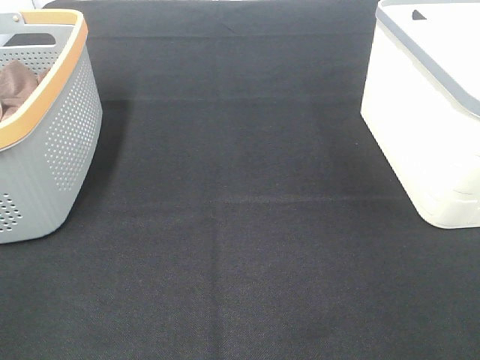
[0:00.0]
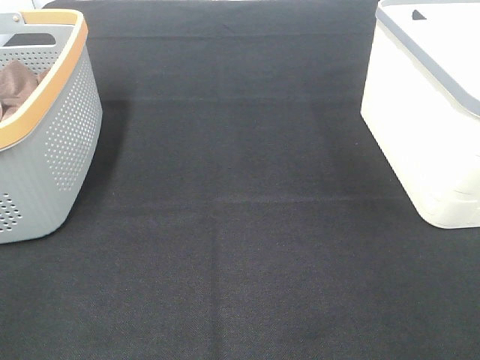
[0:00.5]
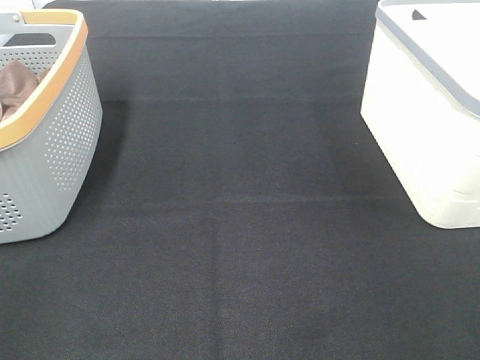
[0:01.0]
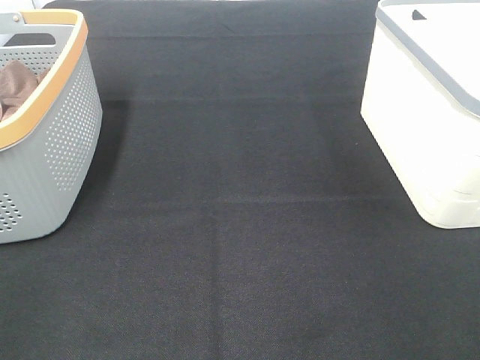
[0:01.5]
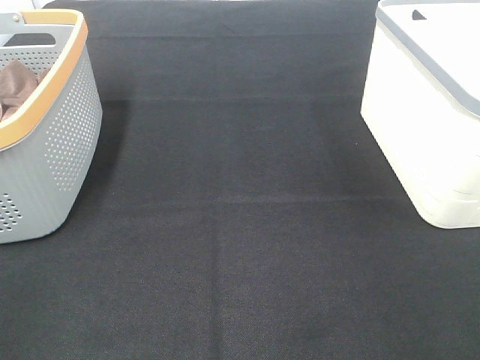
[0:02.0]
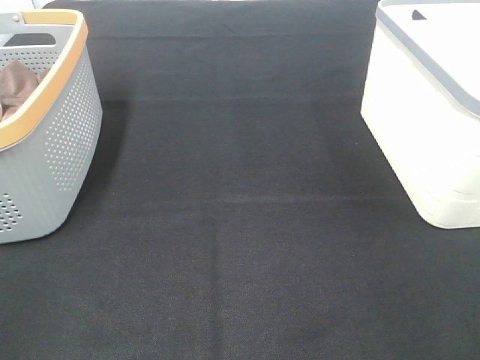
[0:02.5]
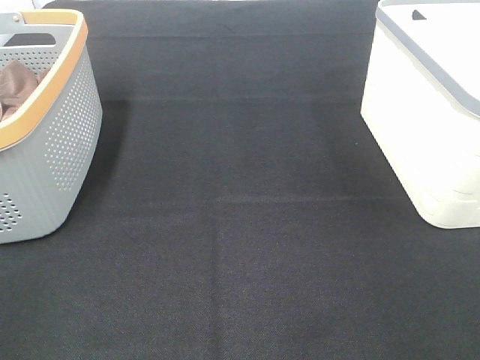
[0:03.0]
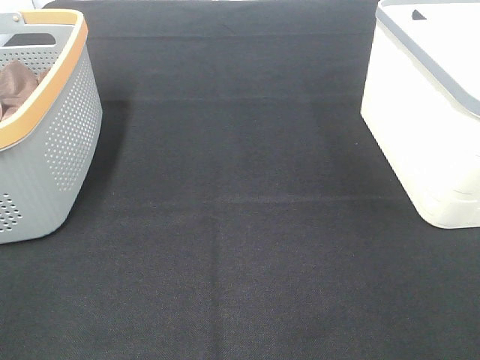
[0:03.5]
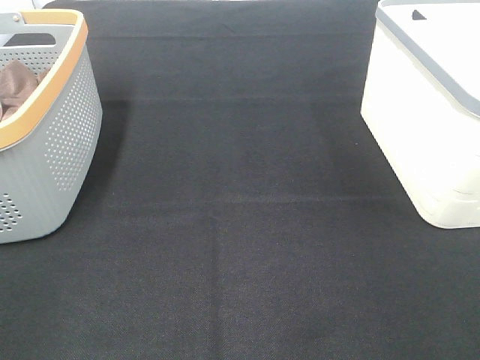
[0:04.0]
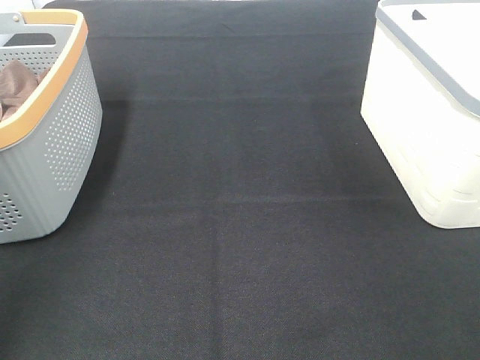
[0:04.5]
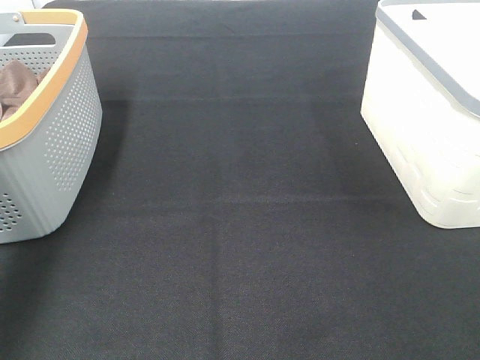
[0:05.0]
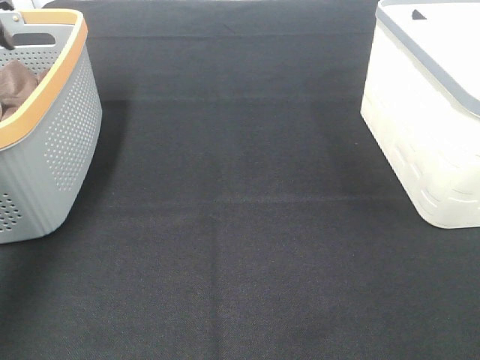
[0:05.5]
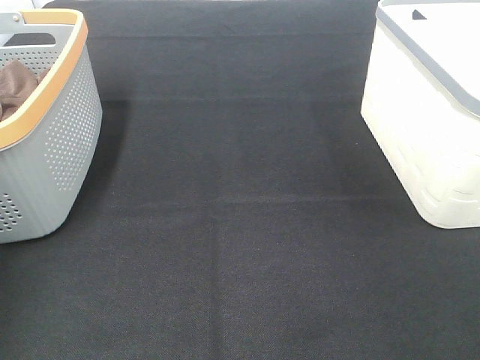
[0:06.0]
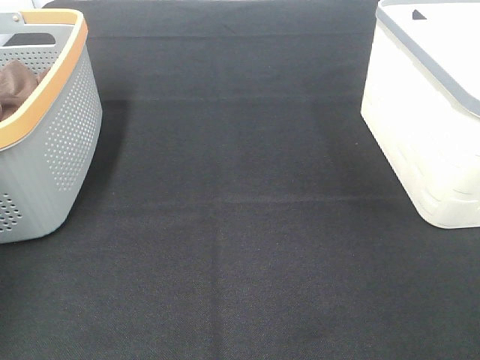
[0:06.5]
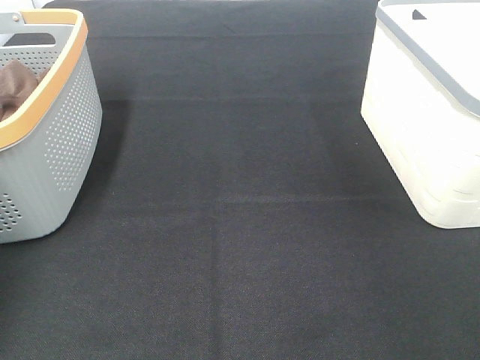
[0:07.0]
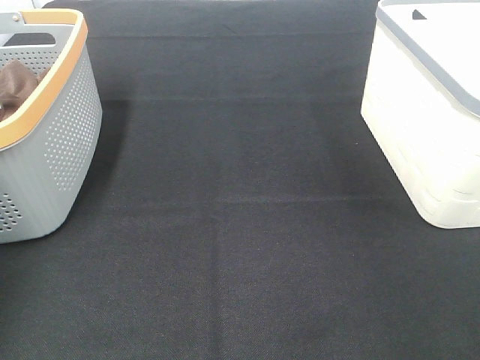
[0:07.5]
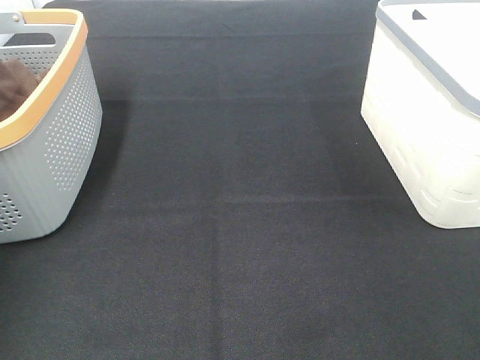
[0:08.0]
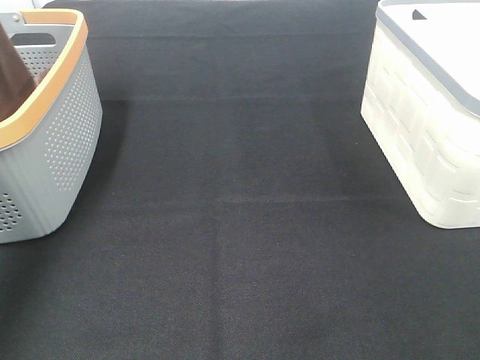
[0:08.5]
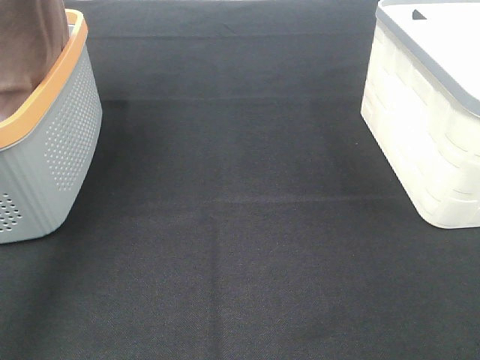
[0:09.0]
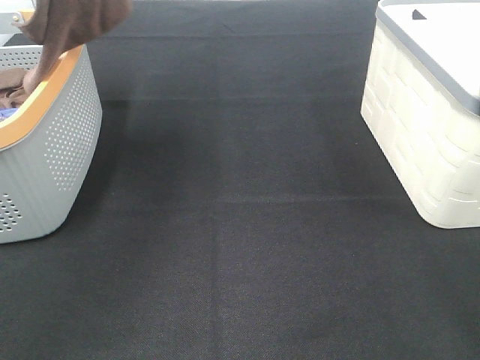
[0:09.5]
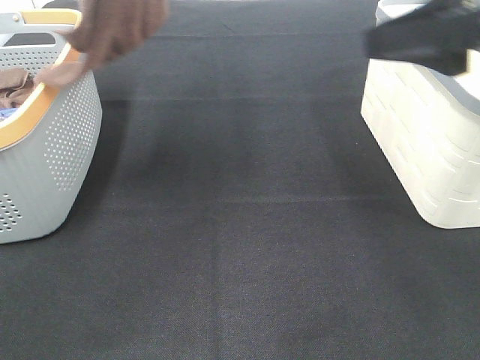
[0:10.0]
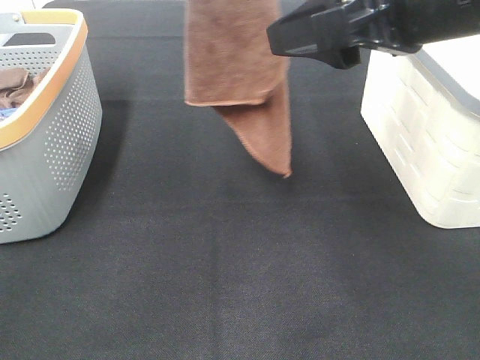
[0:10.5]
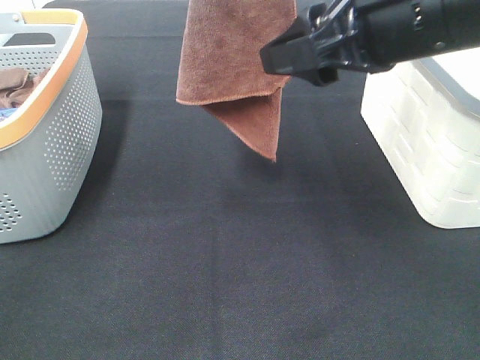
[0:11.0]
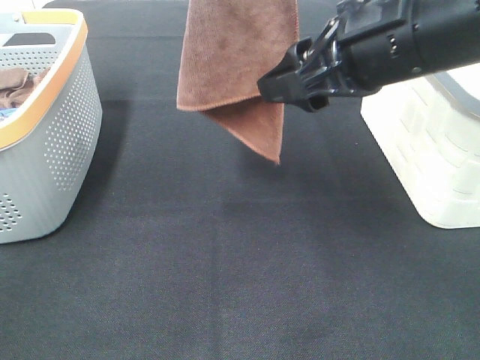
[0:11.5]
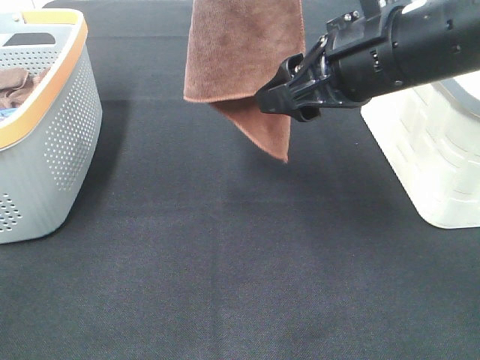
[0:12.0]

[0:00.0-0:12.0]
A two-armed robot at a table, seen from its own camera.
Task of the whole recording: Remove the towel and place it.
0:00.0 to 0:02.0: Both grippers stay about where they are.
0:04.0 to 0:06.0: The left gripper goes some 40 cm forward.
0:06.0 to 0:08.0: The left gripper is displaced upward by approximately 10 cm, and closes up.
0:08.0 to 0:10.0: The right gripper shifts some 25 cm forward and to the left. The left gripper moves to the right, upward and backward, some 30 cm.
0:10.0 to 0:12.0: The left gripper heads to the right, covering about 10 cm. The right gripper shifts approximately 10 cm to the left, downward and forward.

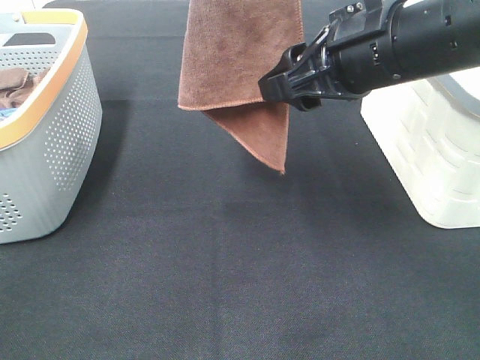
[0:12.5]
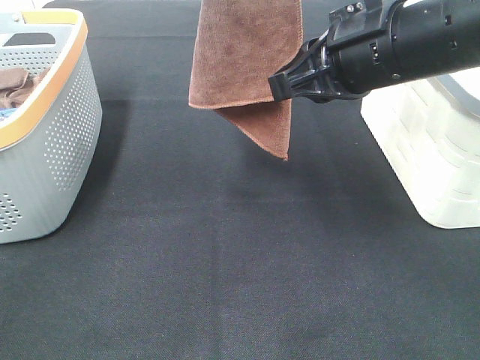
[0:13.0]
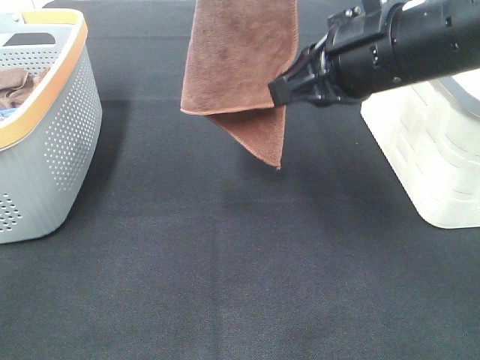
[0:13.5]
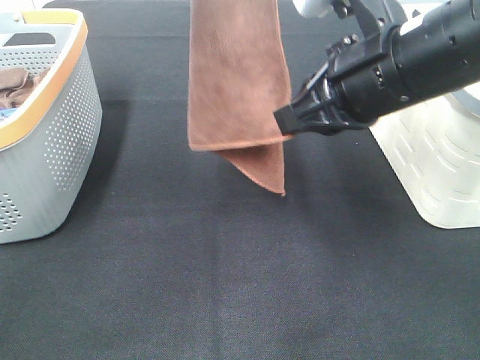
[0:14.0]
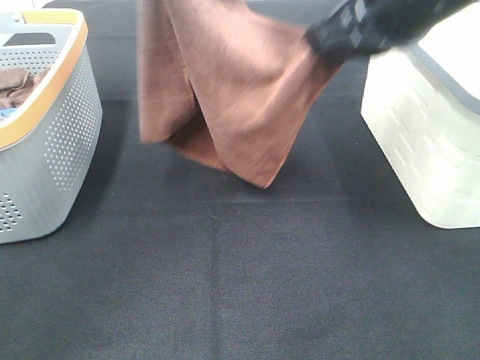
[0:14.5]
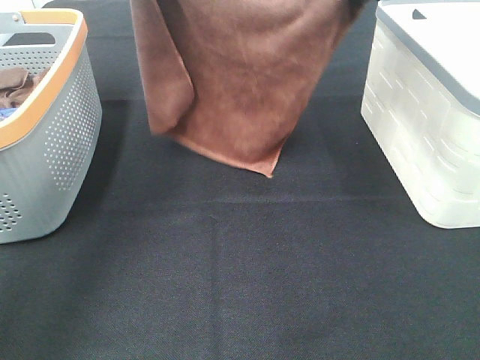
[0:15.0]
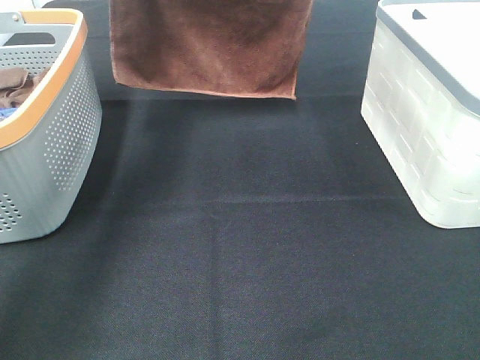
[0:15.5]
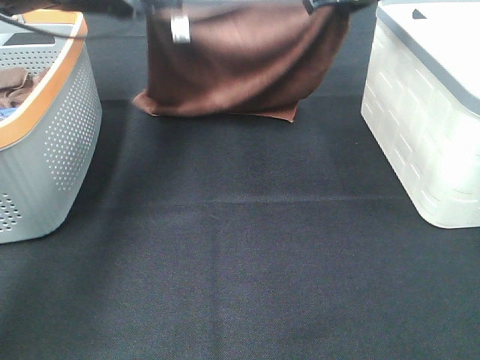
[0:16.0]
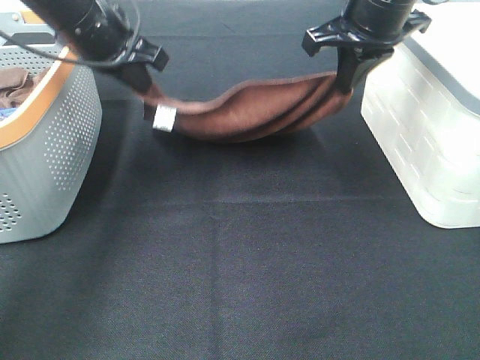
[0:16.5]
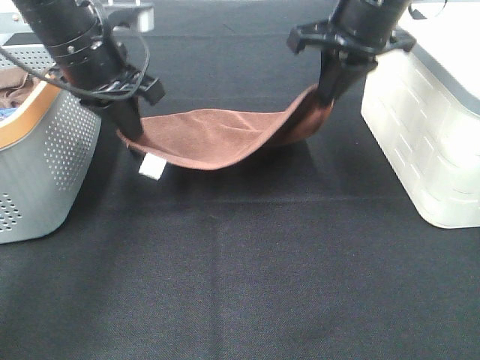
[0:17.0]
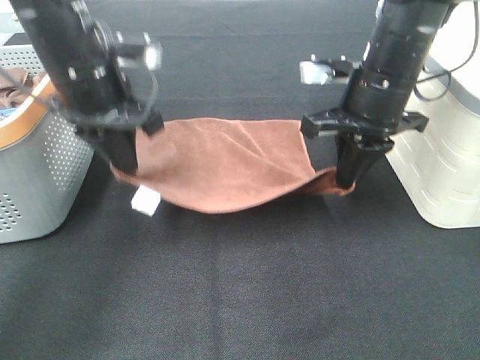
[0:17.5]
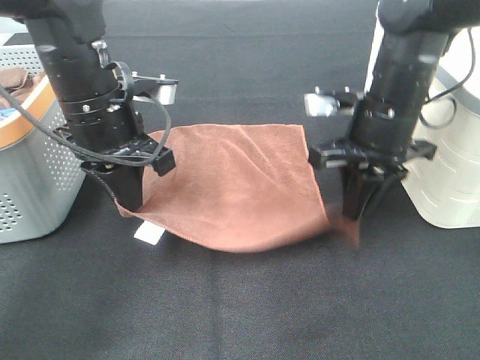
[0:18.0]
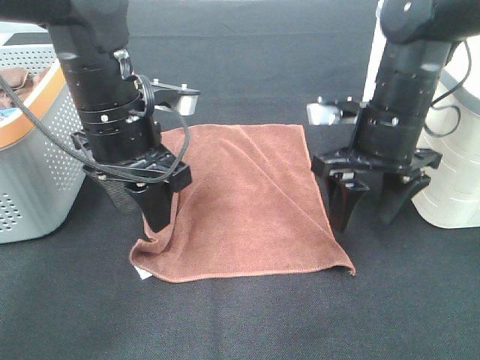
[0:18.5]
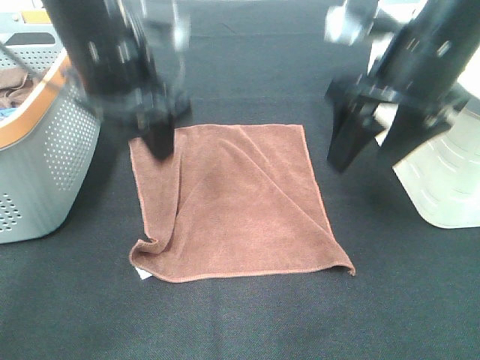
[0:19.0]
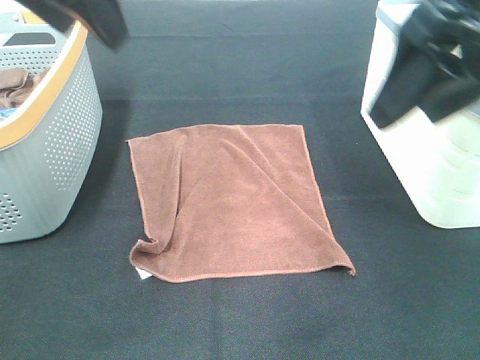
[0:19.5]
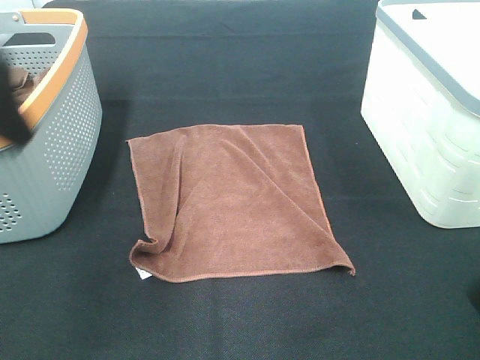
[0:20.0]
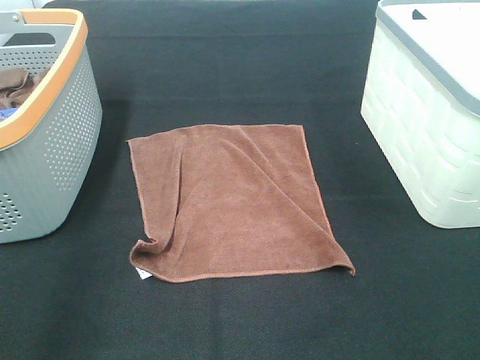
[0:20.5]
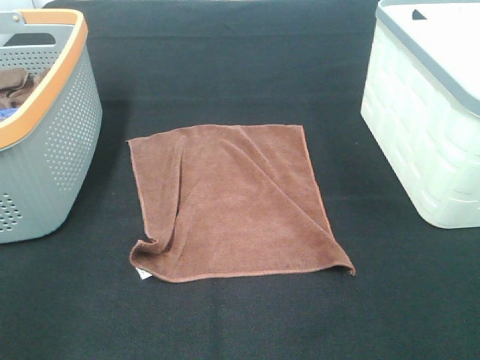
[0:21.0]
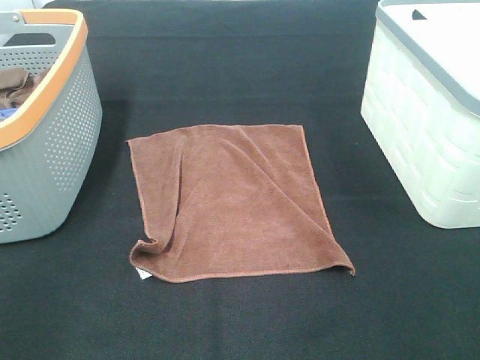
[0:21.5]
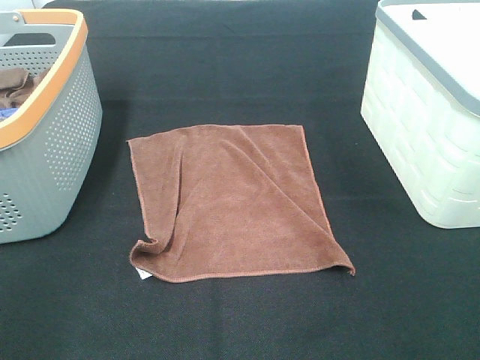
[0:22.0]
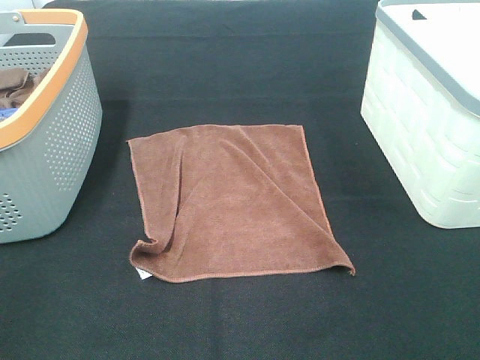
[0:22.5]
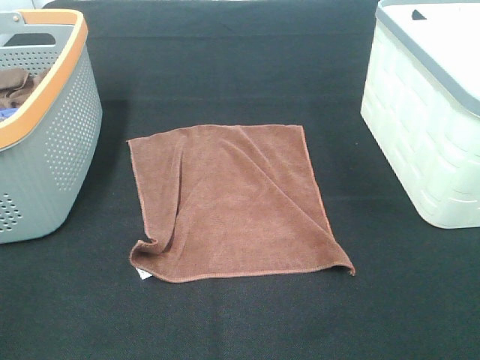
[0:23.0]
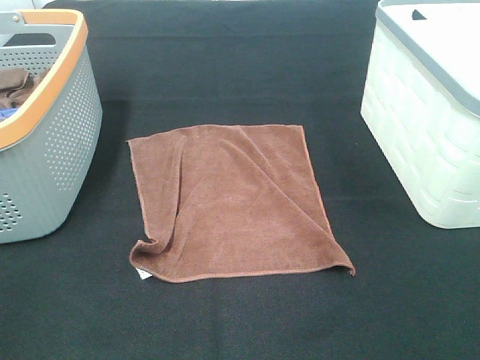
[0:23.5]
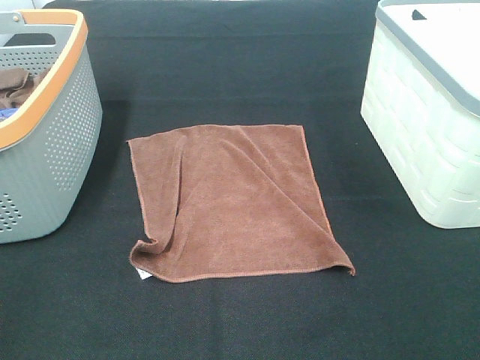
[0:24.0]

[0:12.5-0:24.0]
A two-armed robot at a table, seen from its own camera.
Task of the whole recording: Remove the towel and place it.
Step, 0:12.5 to 0:14.0: Right hand: spread the brown towel flat on the table.
Step, 0:12.5 to 0:14.5: Left hand: spread the brown towel flat on the table.
0:12.5 to 0:14.5: The right gripper heads upward, covering approximately 5 cm, and closes; the left gripper travels to the left, forward and downward by some 15 cm.
0:14.5 to 0:16.5: The right gripper moves forward and downward, about 10 cm, while the left gripper travels downward by some 15 cm.
0:16.5 to 0:18.5: The right gripper shifts roughly 15 cm downward and backward, and opens up. The left gripper moves backward and to the right, roughly 10 cm, and opens.
0:18.5 to 0:20.0: The right gripper shifts roughly 25 cm backward and upward. The left gripper moves upward, backward and to the left, approximately 20 cm.
0:20.0 to 0:22.0: The left gripper heads backward, to the left and downward, covering some 20 cm.

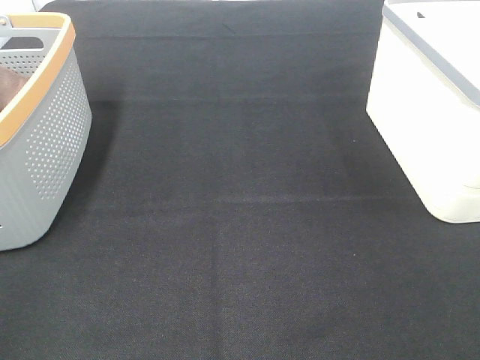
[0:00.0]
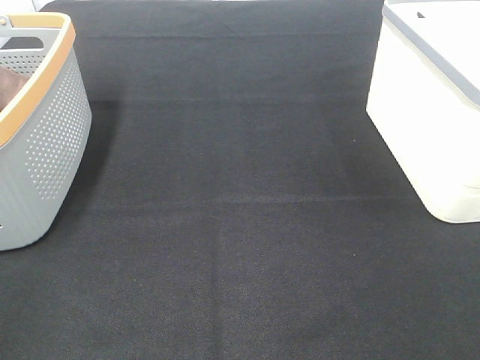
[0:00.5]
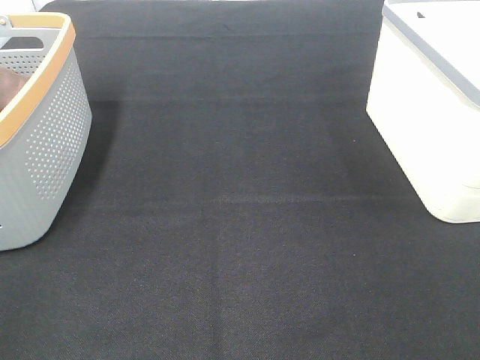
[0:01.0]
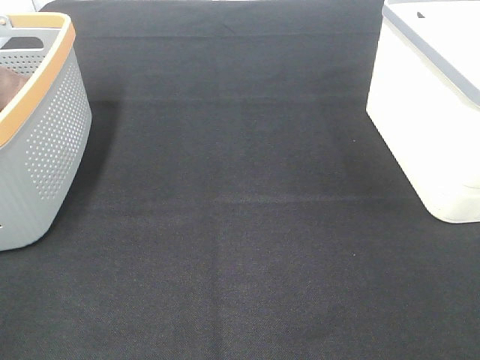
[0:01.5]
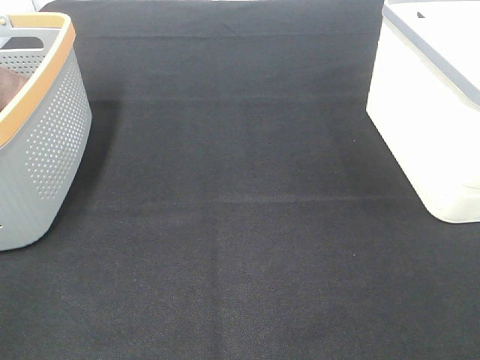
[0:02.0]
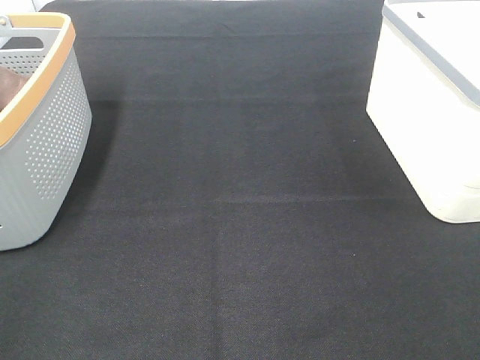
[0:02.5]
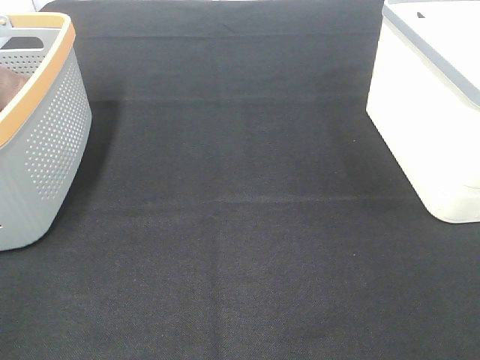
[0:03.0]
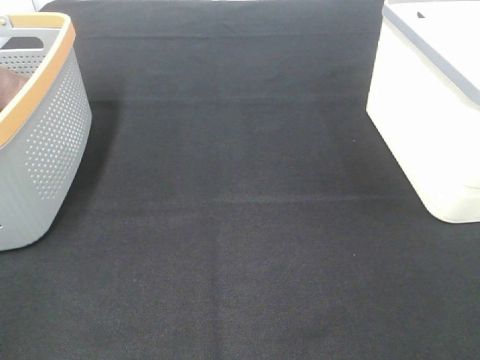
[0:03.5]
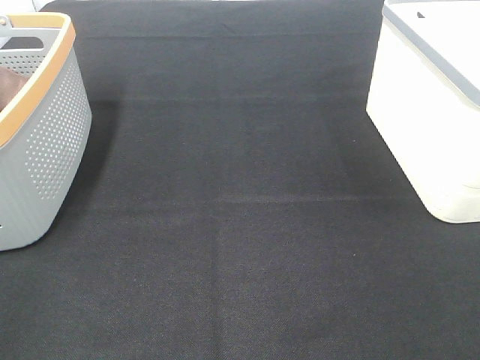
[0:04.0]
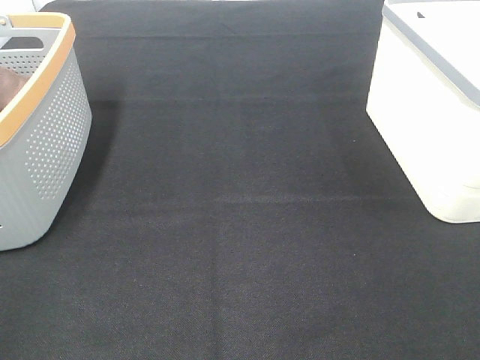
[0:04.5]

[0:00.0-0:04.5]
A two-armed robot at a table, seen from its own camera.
Task of the whole recording: Remove the towel and place it.
0:00.0 to 0:04.5: Neither gripper changes place.
